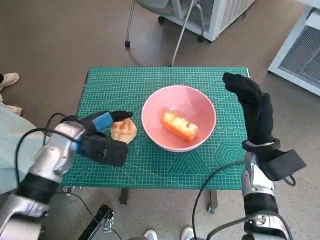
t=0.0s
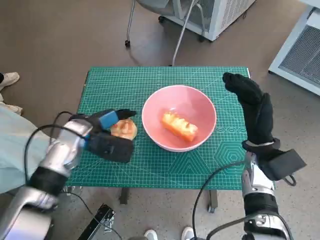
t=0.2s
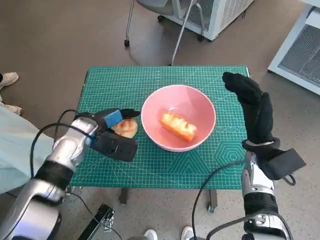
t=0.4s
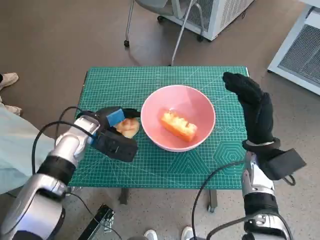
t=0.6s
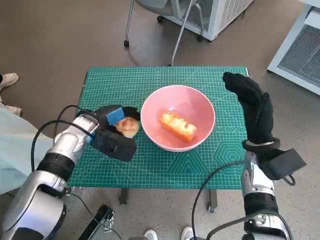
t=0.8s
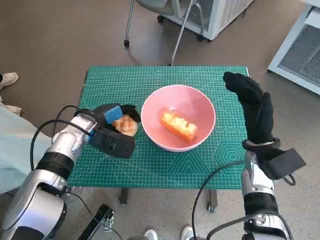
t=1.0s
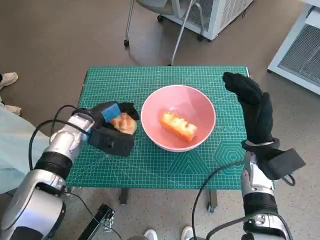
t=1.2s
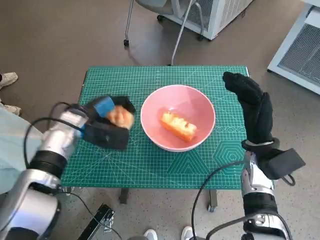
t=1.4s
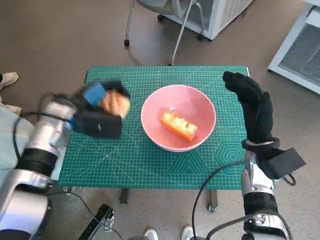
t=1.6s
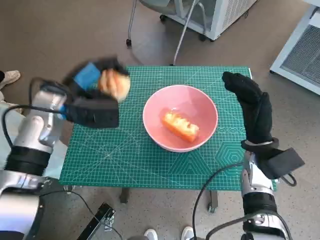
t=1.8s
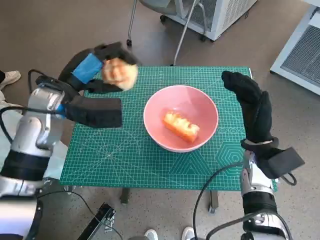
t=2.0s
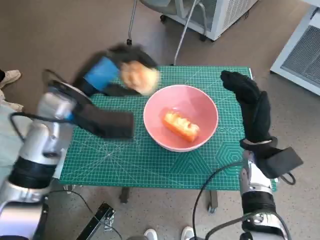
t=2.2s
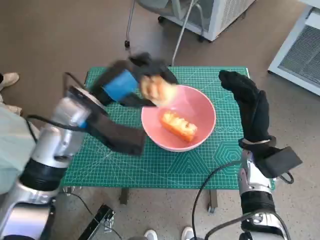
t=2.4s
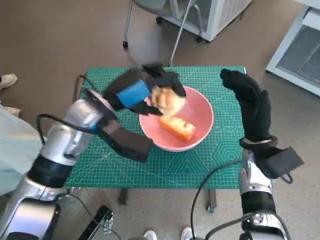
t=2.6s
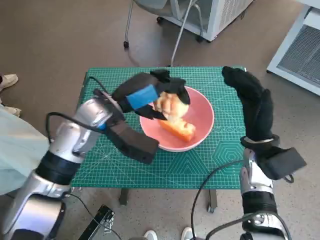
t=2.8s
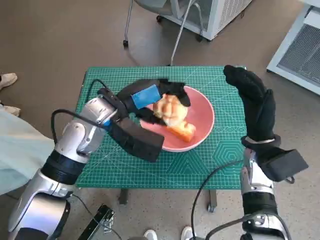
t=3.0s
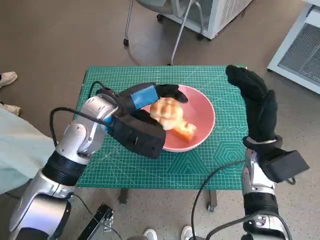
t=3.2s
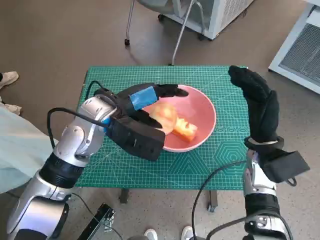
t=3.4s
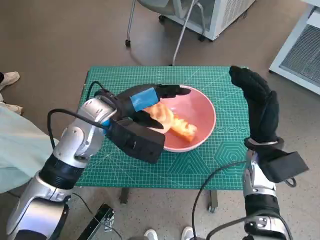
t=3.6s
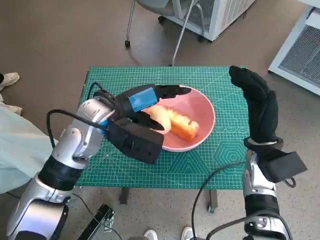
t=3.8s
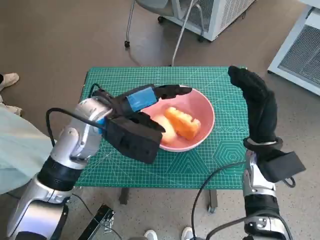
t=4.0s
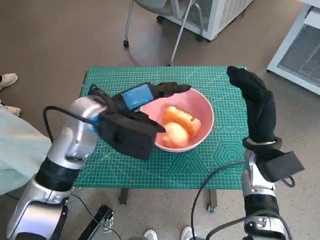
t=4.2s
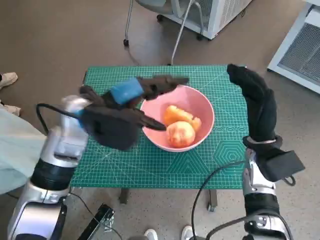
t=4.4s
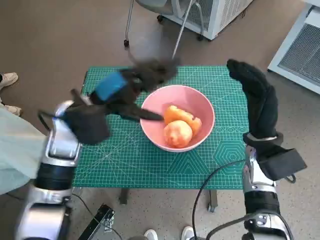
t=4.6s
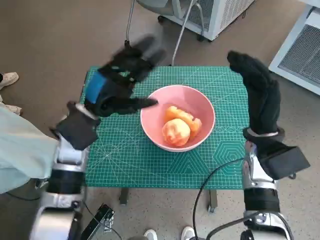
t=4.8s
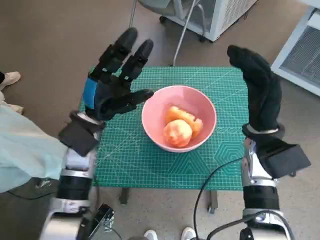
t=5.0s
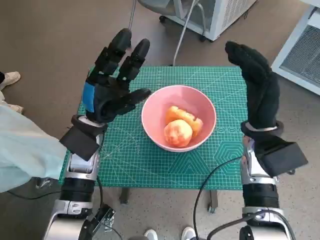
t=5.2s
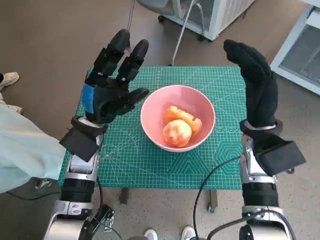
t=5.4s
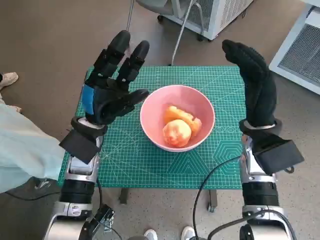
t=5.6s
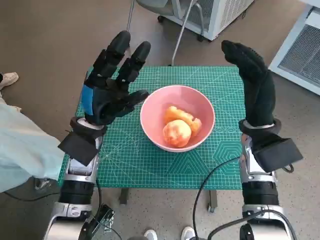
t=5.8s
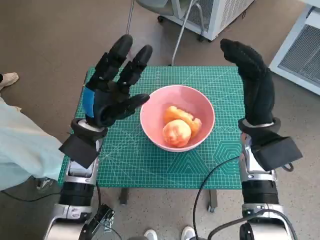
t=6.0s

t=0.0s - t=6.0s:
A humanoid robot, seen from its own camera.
Task of the whole recording: Push the bowl to the center of the table and put the bread into the bowl.
Step, t=0.8s - t=3.6s: Place the round bread in pink bowl with left hand.
t=0.0s - t=1.6s: The hands move only a little.
t=1.6s - t=3.0s: The left hand moves to the right and upward, about 10 cm.
t=4.4s - t=6.0s: The left hand travels downward by some 5 cm.

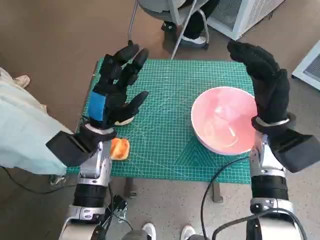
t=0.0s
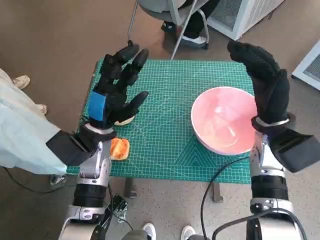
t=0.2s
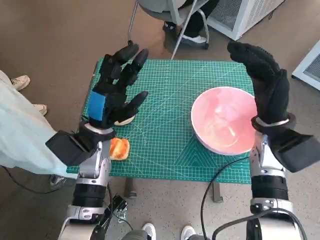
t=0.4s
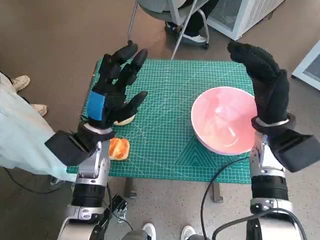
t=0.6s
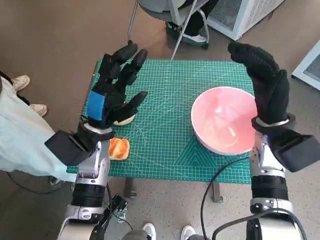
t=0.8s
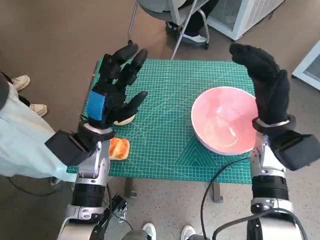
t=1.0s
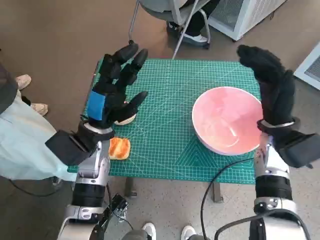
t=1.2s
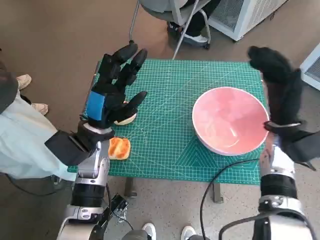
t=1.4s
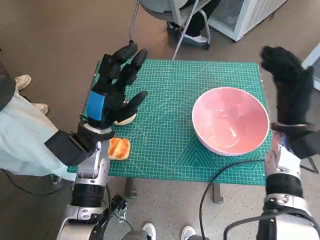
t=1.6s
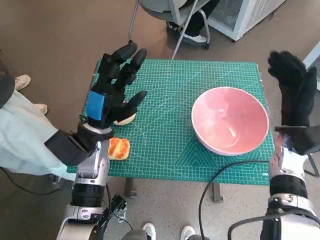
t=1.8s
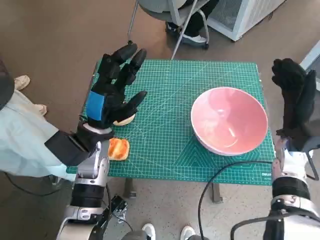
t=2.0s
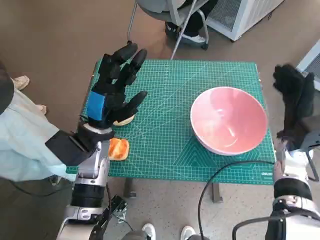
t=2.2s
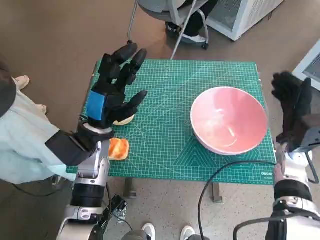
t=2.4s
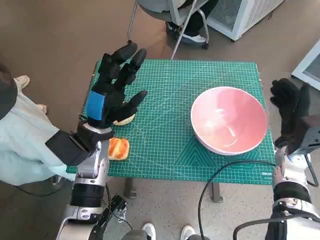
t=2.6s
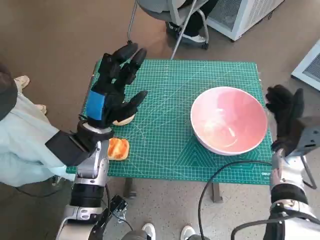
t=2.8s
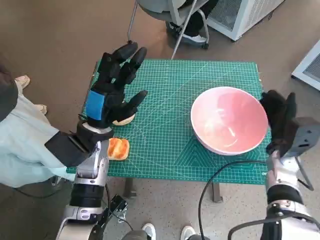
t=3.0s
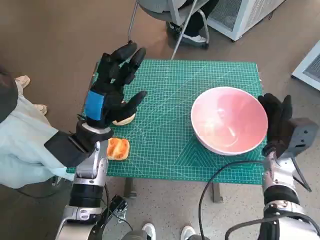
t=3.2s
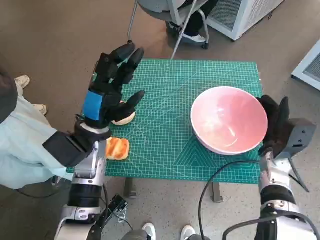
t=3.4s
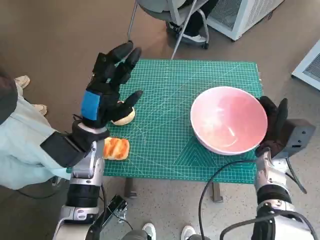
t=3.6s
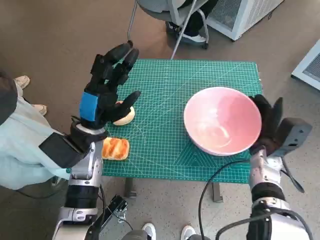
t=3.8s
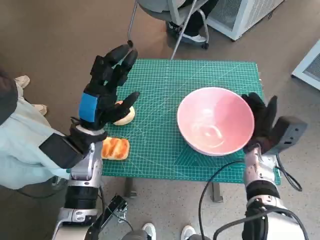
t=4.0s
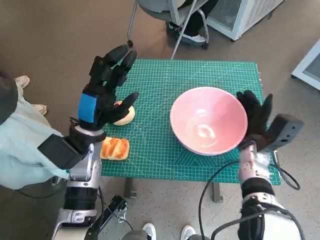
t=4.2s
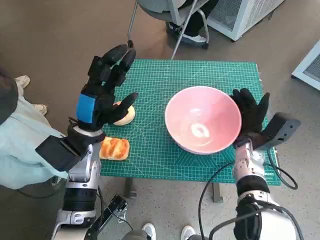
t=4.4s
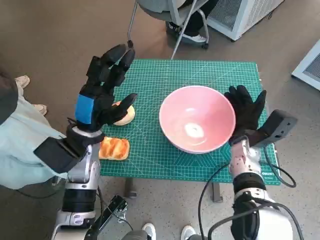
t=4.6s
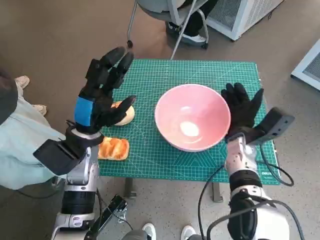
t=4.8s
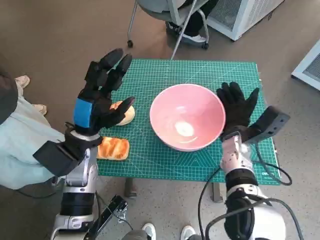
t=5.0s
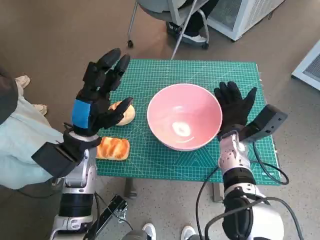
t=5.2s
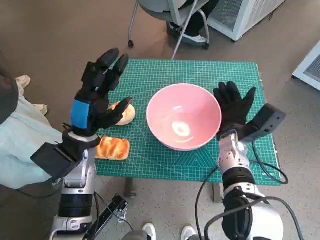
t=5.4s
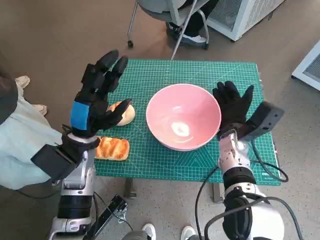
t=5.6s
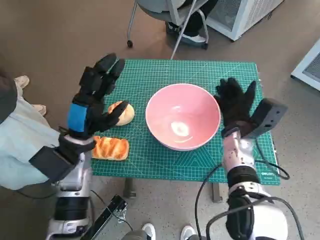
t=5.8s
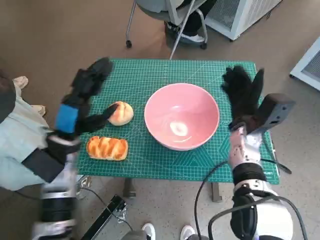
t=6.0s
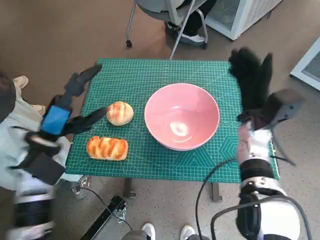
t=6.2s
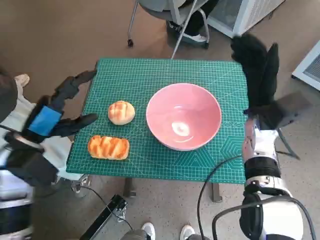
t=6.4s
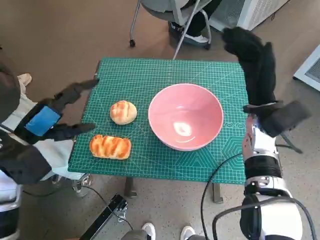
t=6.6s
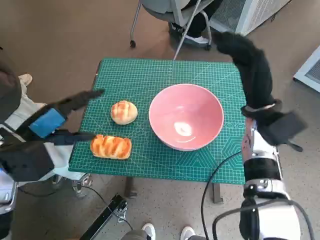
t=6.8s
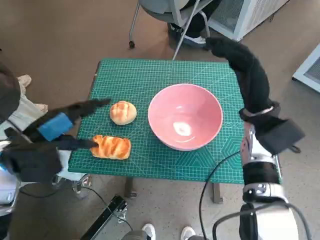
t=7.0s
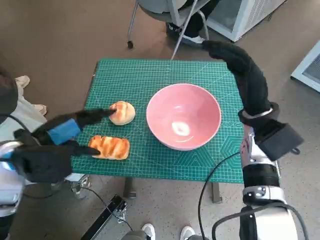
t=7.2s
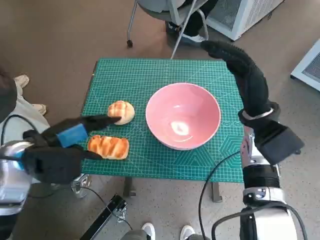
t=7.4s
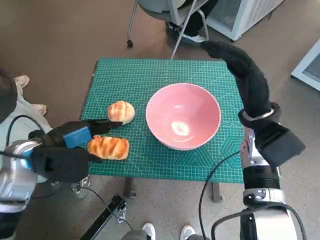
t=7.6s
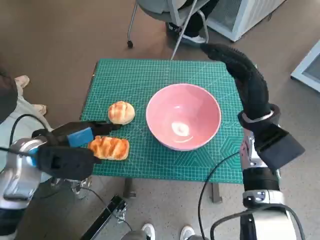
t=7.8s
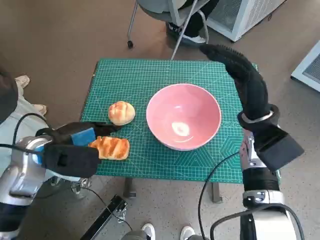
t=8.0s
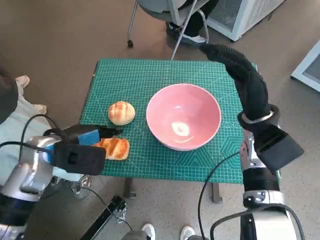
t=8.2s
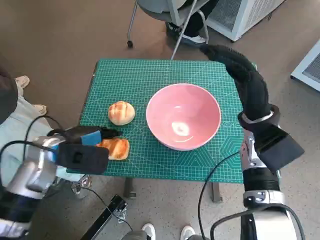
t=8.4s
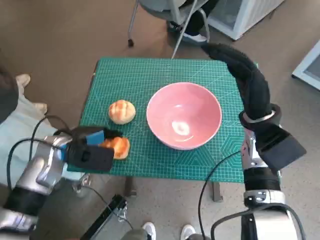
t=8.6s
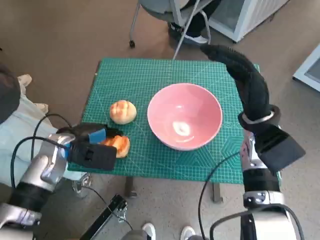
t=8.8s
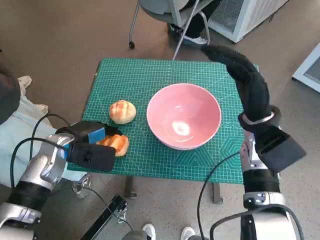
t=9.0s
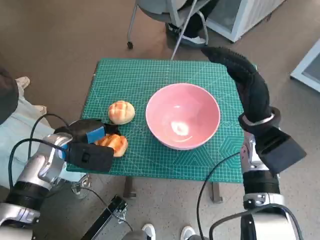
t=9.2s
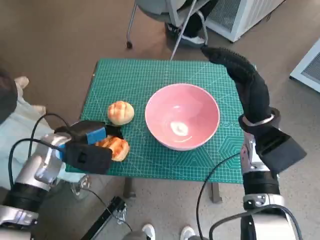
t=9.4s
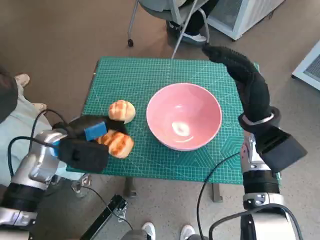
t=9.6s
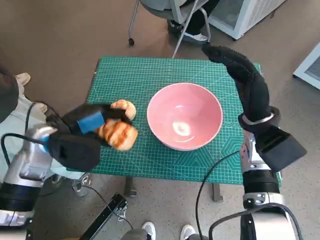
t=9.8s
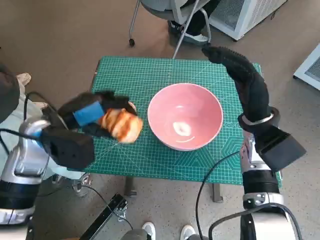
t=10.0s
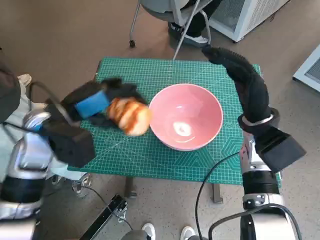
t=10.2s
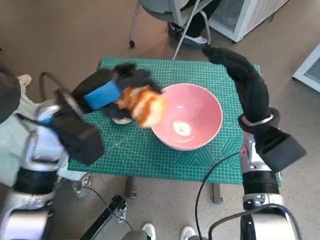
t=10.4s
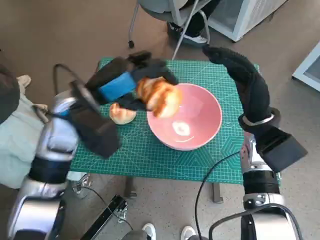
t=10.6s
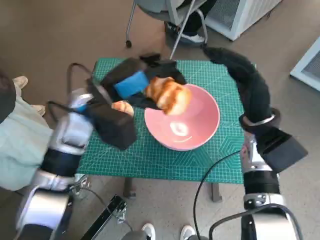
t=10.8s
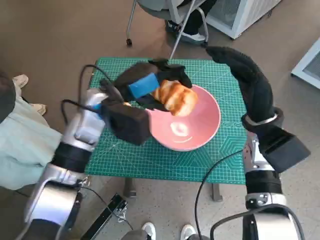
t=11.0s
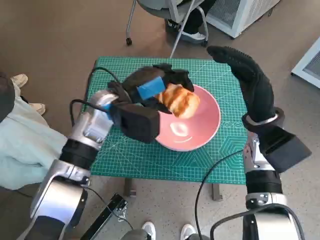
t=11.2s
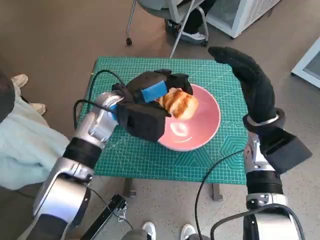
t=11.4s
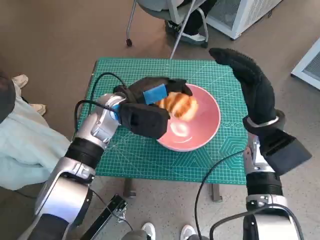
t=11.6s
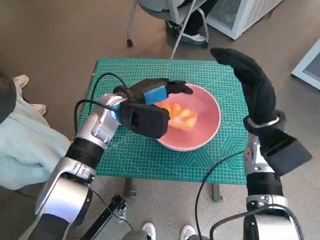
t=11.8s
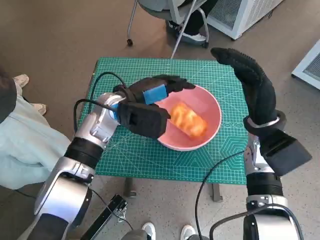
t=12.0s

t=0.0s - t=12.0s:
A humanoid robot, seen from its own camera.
Task of the whole recording: Push the bowl to the center of the table and put the bread into the bowl.
Step, t=0.0s - t=5.8s: Move the pink bowl to the center of table with right hand.
Step, t=6.0s - t=9.2s: Grasp the long bread with left hand.
Step, t=9.4s - t=11.6s: Place the long bread in pink bowl with left hand.
t=1.6s - t=3.0s: The right hand travels downward by about 5 cm.
t=3.0s - t=4.4s: The right hand travels to the left by approximately 5 cm.
t=6.0s - t=7.6s: The right hand travels upward by about 10 cm.
t=7.6s - t=9.0s: The left hand heads downward, covering roughly 5 cm.
t=9.0s - t=10.4s: The left hand travels upward by some 10 cm.
t=10.4s - t=12.0s: The left hand goes roughly 10 cm to the right and forward.

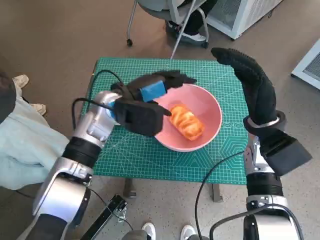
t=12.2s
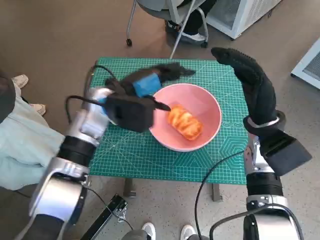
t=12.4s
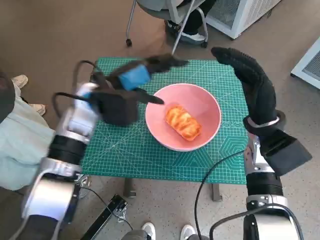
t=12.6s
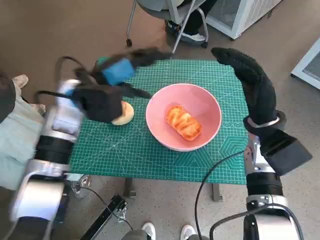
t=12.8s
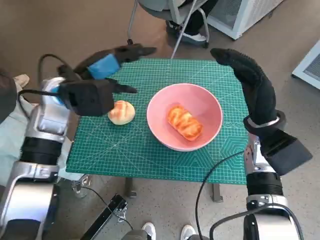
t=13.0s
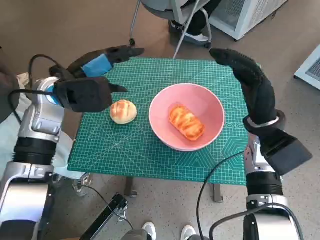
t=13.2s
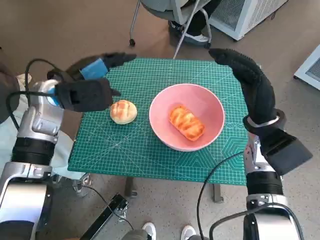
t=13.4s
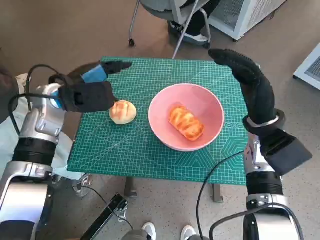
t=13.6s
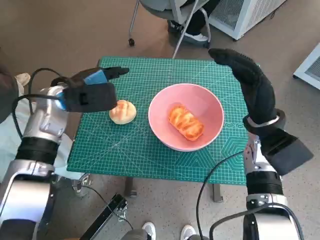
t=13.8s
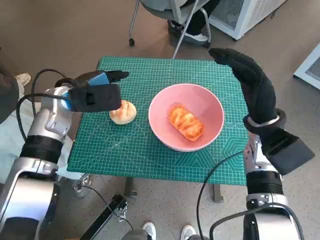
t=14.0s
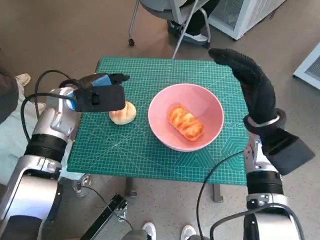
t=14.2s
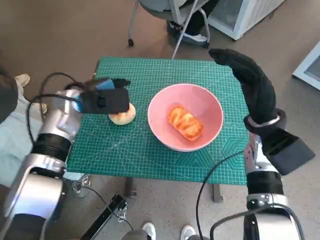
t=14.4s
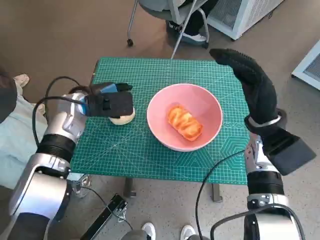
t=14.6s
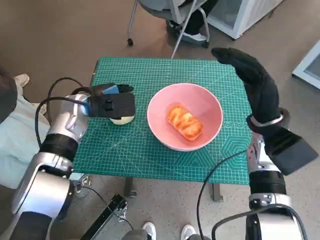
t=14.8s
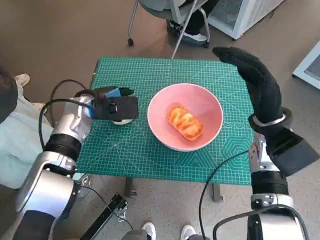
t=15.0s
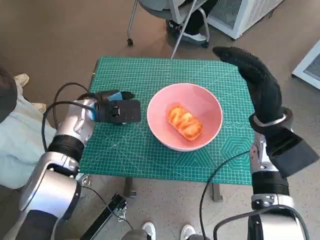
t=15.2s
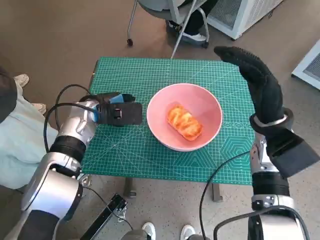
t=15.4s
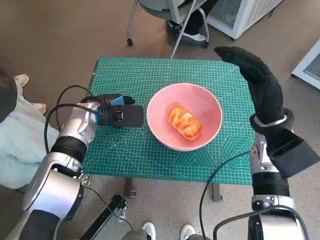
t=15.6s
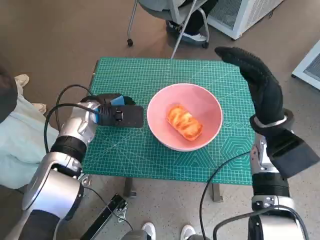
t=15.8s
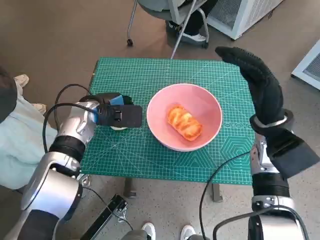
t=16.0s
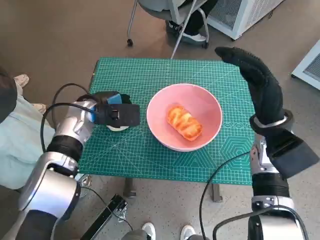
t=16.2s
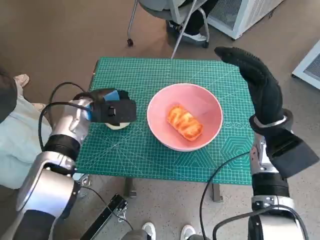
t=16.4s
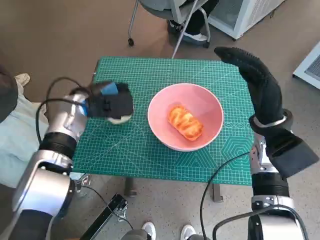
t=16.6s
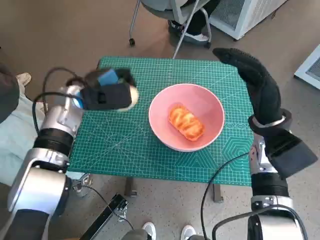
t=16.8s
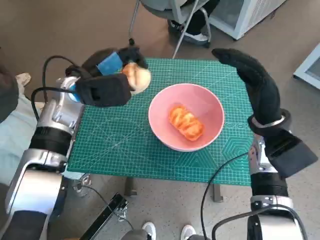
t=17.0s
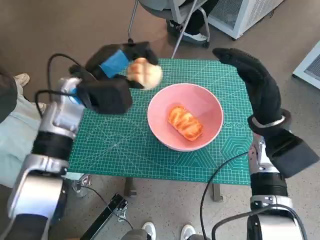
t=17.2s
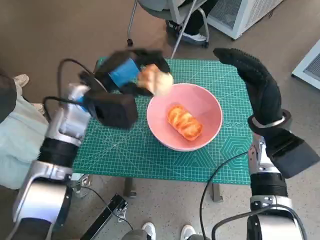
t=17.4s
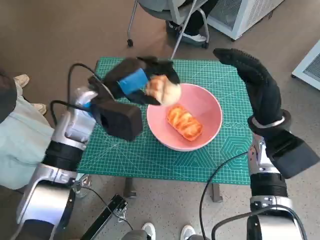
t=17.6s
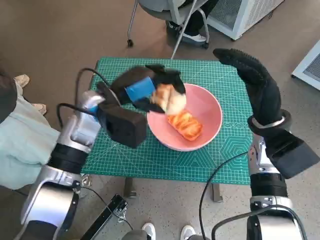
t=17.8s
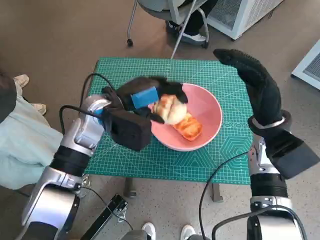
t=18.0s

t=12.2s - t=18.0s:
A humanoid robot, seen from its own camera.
Task of the whole recording: Push the bowl to the center of the table and put the bread into the bowl.
Step, t=12.2s - t=16.0s: Grasp the round bread with left hand.
t=12.2s - t=13.6s: The left hand is displaced to the left by approximately 10 cm.
t=13.6s - t=15.0s: The left hand heads downward, covering roughly 5 cm.
t=15.0s - t=16.6s: The hands stay close to where they were, moving slightly.
t=16.6s - t=18.0s: The left hand heads to the right, covering some 5 cm.
